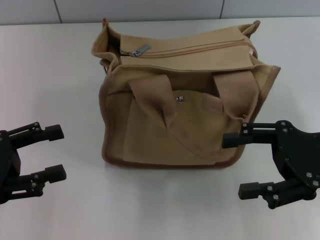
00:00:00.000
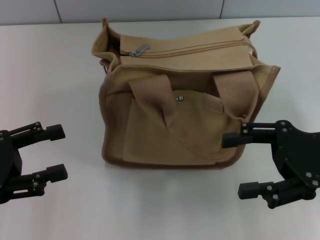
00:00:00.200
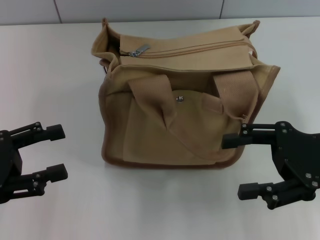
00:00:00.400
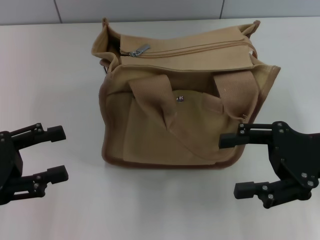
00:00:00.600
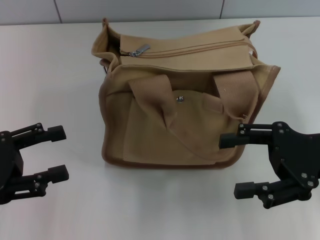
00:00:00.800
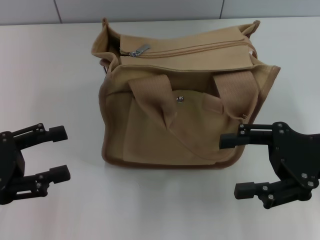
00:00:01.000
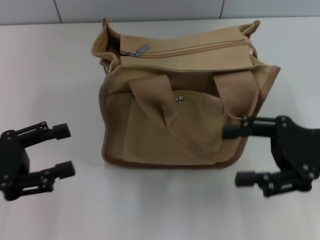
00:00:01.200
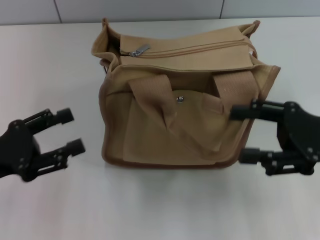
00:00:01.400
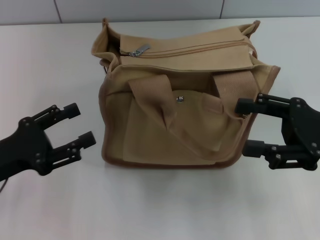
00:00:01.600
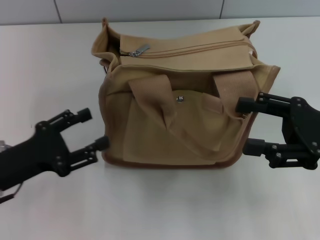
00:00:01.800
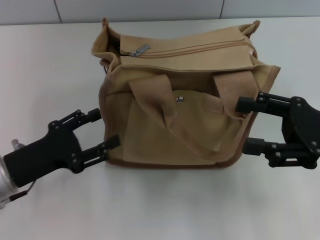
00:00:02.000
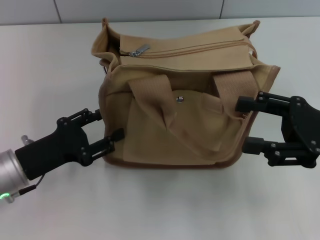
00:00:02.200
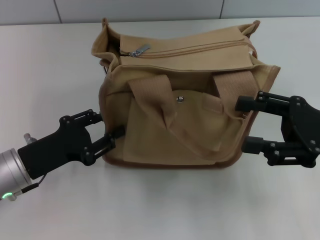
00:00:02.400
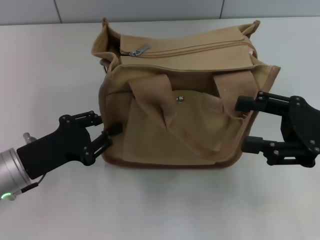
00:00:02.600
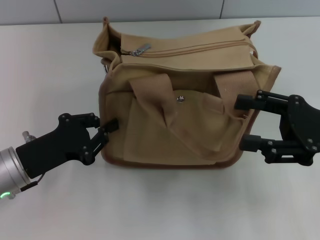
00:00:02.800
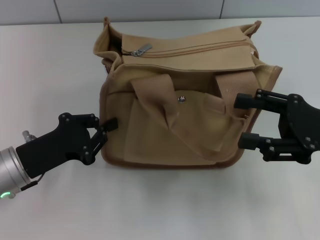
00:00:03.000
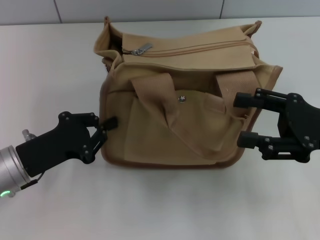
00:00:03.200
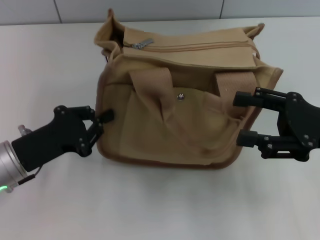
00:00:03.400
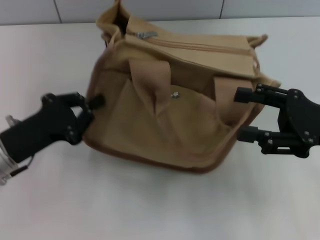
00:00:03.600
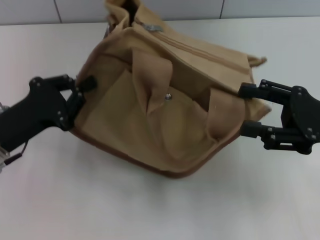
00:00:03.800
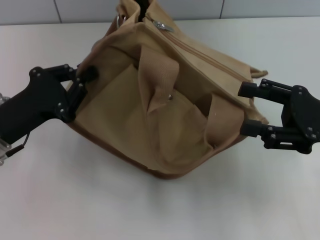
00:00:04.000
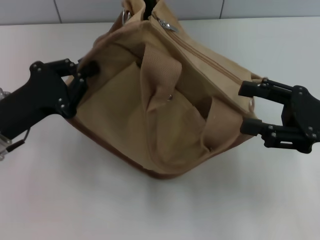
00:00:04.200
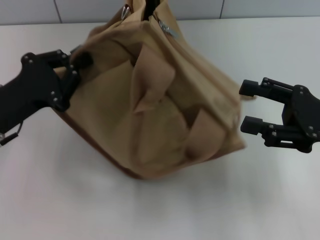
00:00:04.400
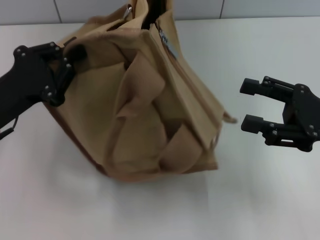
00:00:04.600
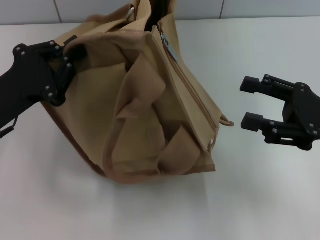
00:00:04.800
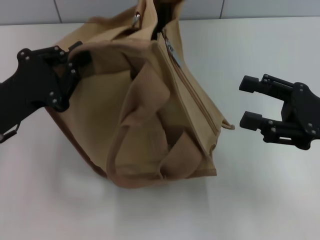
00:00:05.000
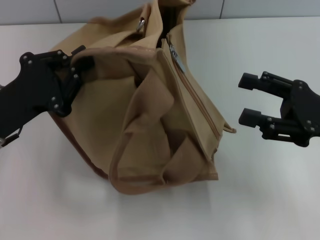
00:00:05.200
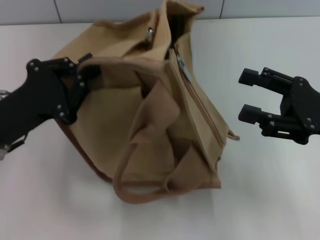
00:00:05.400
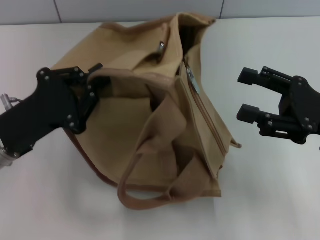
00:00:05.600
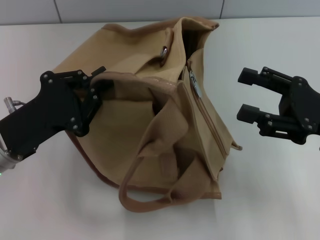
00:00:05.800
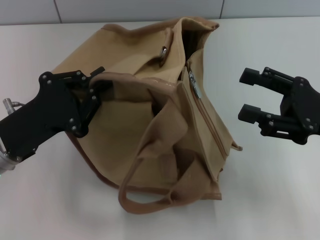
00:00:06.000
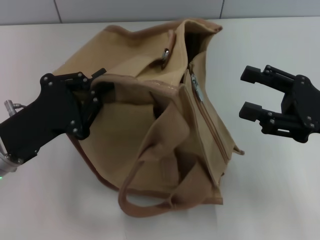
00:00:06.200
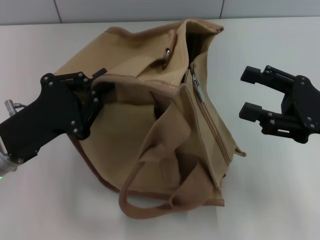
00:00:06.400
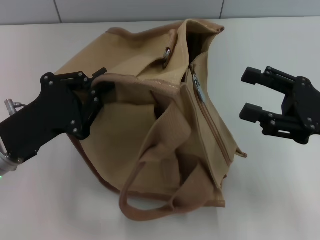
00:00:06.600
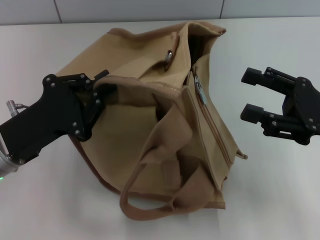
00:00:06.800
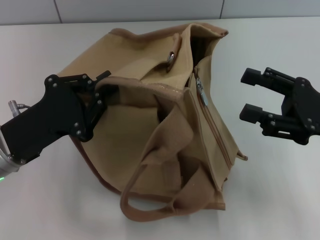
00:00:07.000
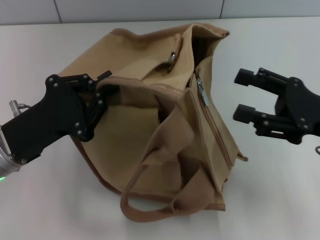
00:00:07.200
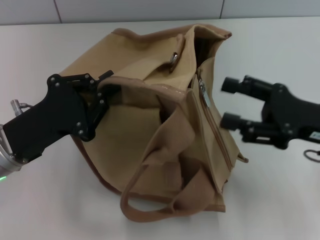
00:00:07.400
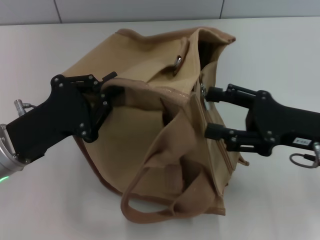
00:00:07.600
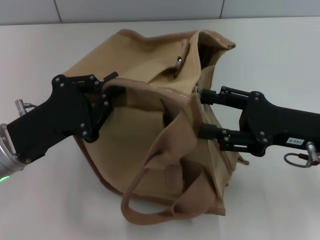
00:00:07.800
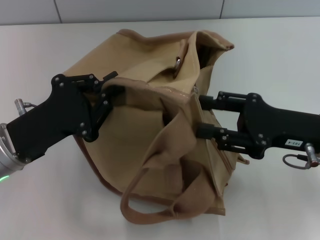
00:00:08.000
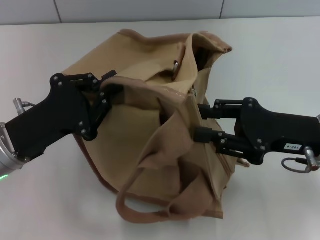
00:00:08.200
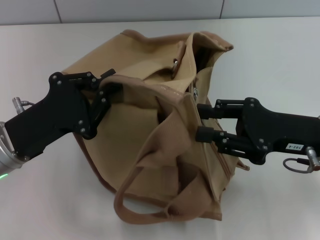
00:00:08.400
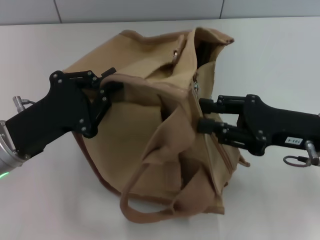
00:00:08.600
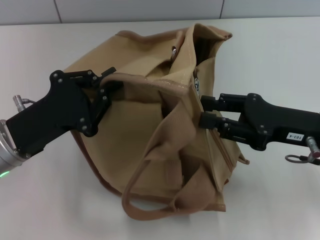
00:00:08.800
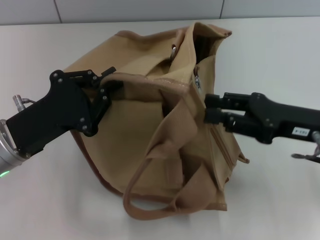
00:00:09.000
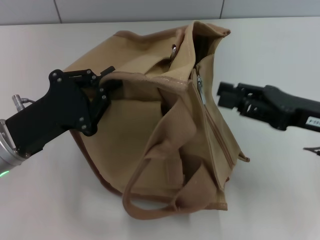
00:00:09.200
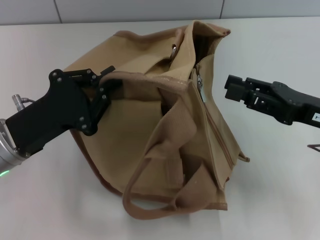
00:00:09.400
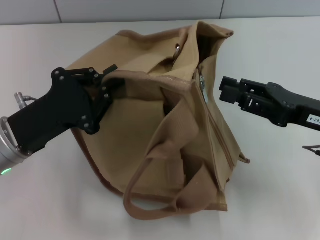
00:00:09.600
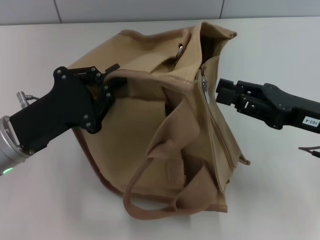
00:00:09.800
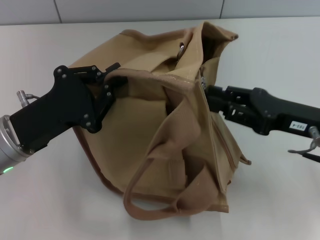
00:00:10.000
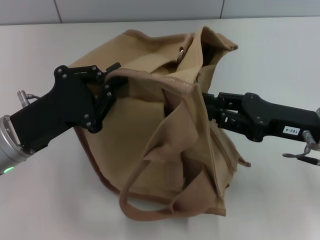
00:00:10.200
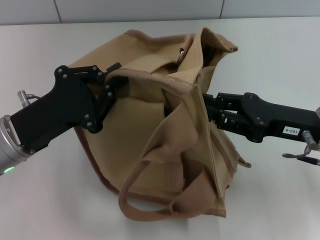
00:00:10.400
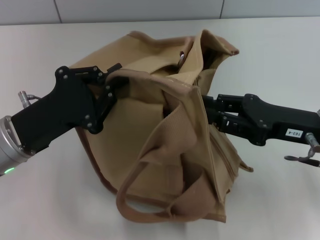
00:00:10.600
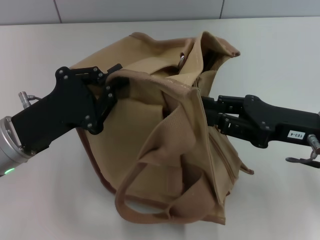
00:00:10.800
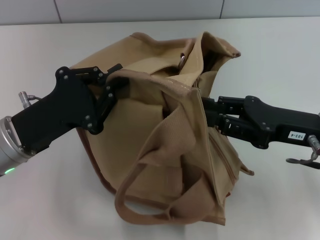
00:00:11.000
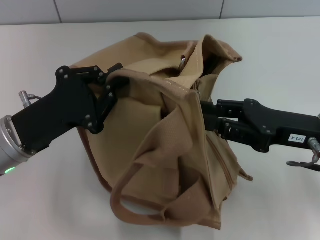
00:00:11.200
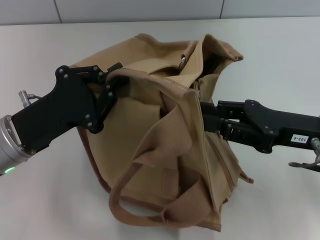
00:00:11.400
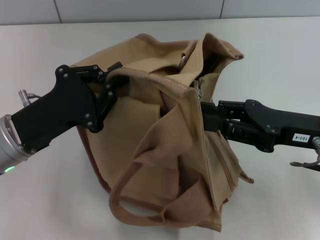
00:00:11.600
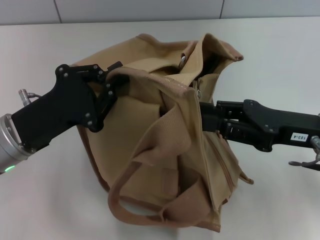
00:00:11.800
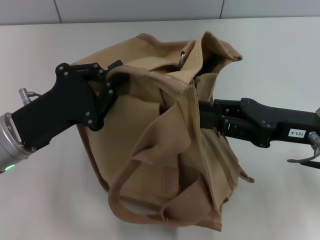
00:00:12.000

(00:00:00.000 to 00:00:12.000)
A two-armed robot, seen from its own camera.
00:00:00.000 - 00:00:01.600: The grippers make only small movements.
00:00:01.600 - 00:00:03.000: The left gripper ends up some 5 cm from where it was, and closes.
00:00:03.000 - 00:00:04.400: The left gripper moves upward, about 5 cm.
00:00:07.600 - 00:00:09.000: The right gripper closes.
00:00:09.000 - 00:00:12.000: The grippers make only small movements.

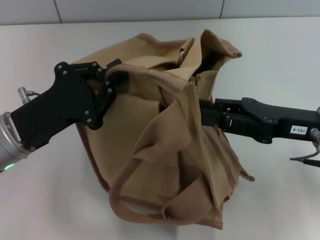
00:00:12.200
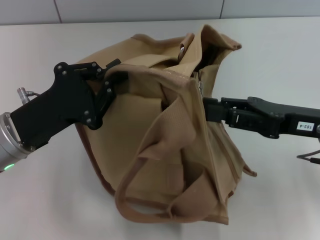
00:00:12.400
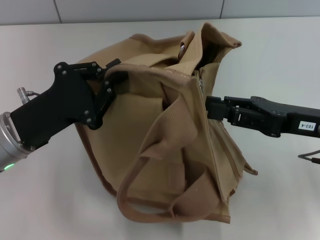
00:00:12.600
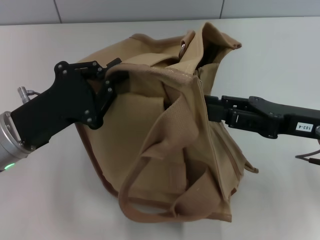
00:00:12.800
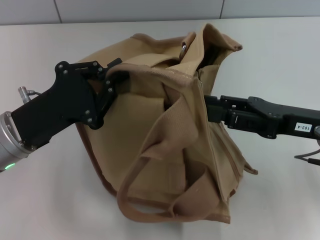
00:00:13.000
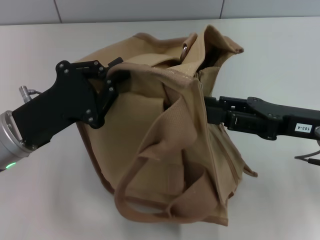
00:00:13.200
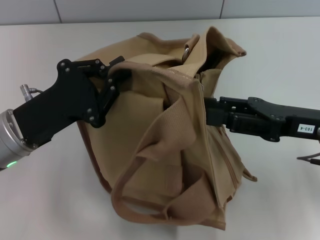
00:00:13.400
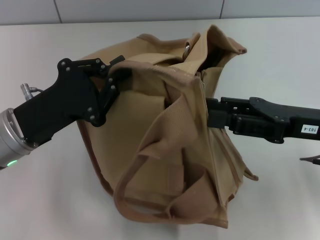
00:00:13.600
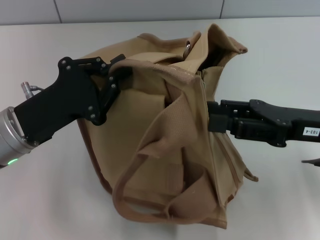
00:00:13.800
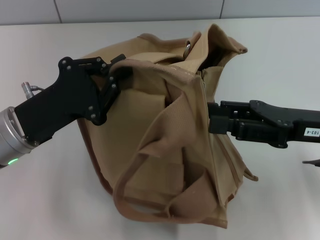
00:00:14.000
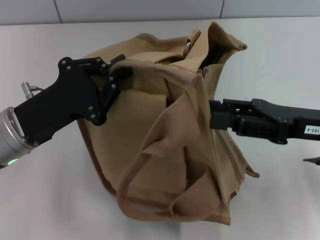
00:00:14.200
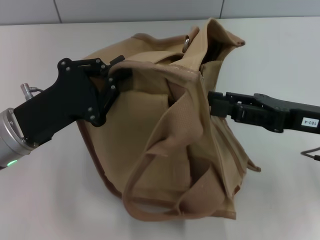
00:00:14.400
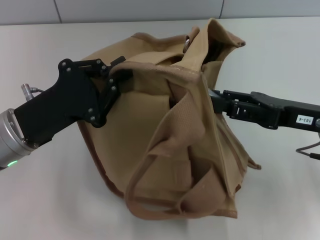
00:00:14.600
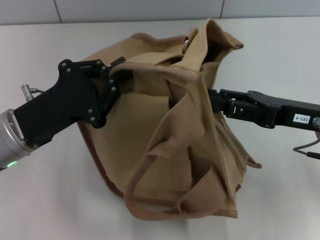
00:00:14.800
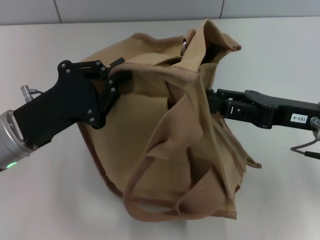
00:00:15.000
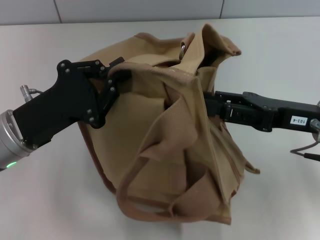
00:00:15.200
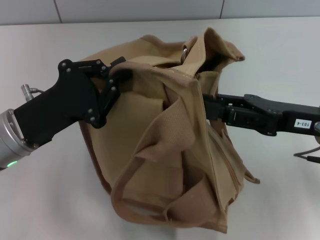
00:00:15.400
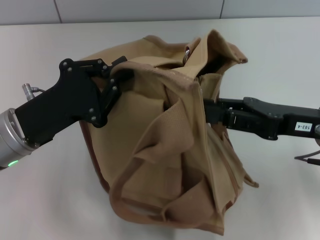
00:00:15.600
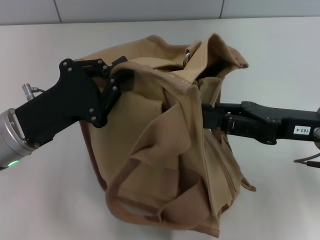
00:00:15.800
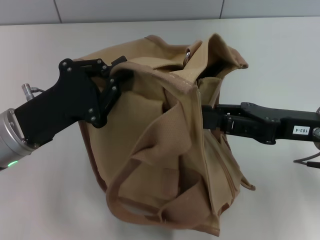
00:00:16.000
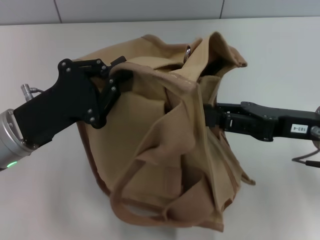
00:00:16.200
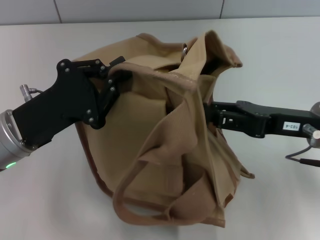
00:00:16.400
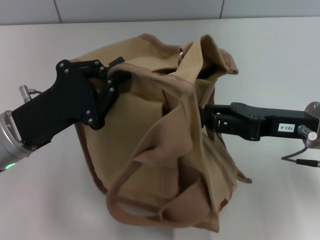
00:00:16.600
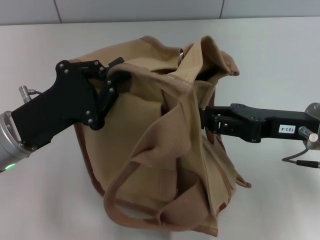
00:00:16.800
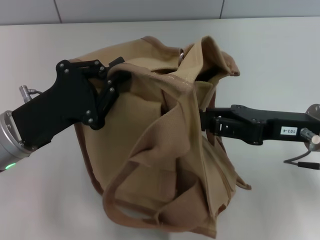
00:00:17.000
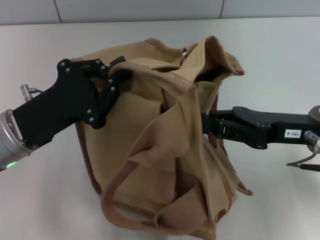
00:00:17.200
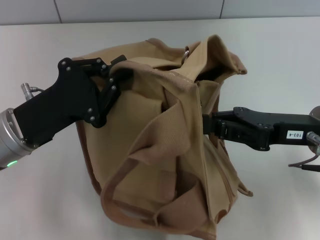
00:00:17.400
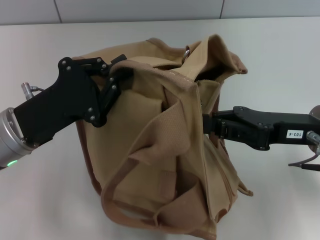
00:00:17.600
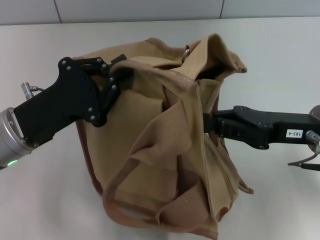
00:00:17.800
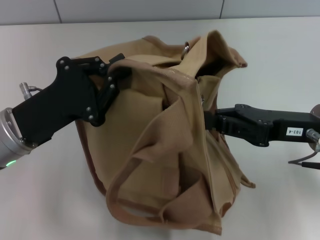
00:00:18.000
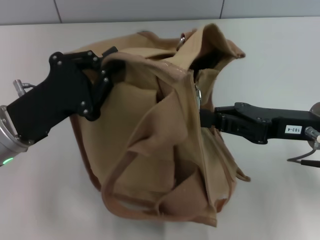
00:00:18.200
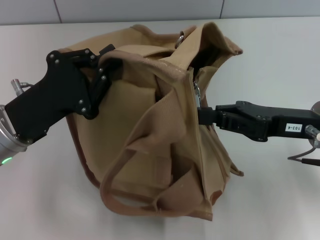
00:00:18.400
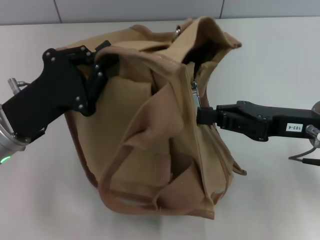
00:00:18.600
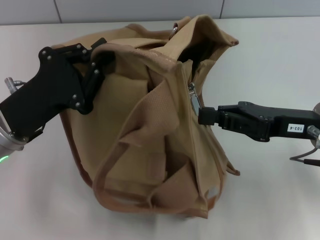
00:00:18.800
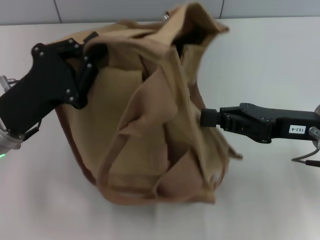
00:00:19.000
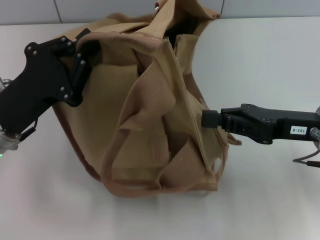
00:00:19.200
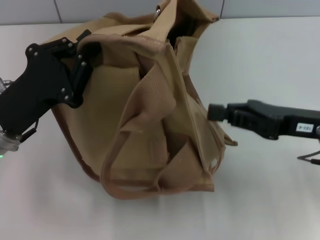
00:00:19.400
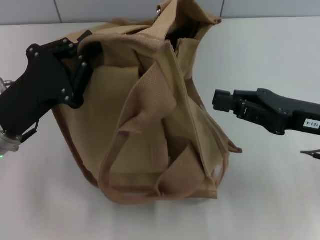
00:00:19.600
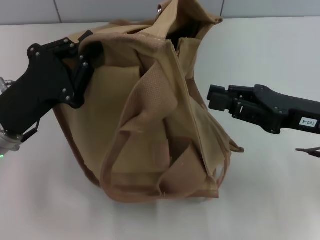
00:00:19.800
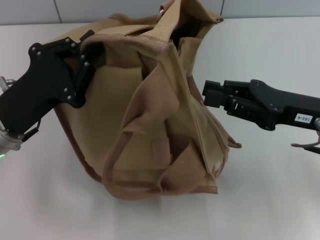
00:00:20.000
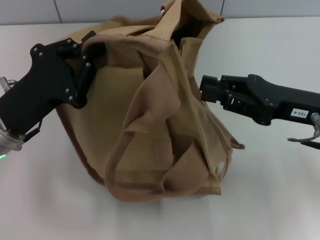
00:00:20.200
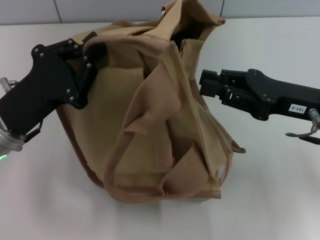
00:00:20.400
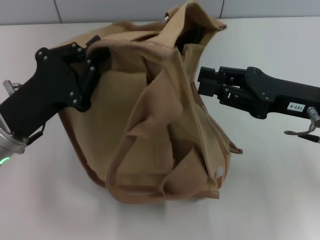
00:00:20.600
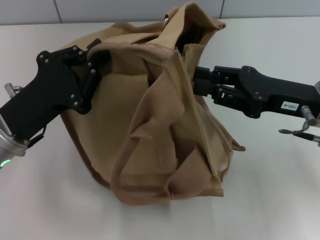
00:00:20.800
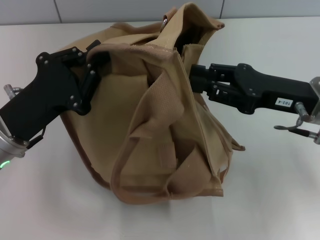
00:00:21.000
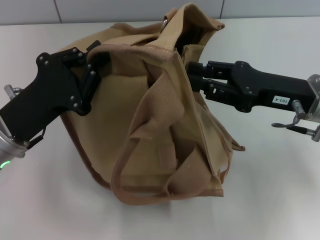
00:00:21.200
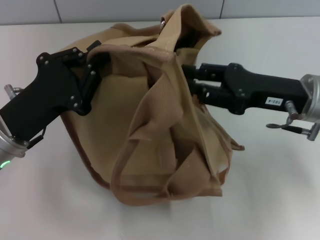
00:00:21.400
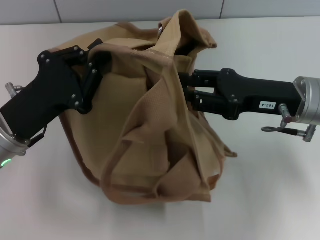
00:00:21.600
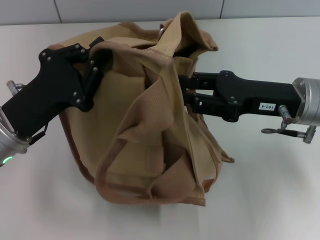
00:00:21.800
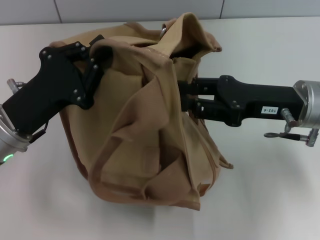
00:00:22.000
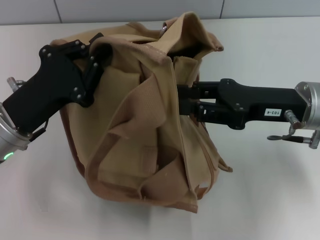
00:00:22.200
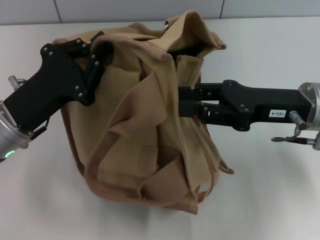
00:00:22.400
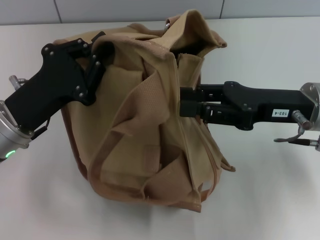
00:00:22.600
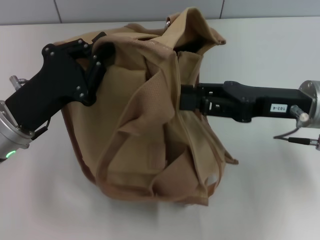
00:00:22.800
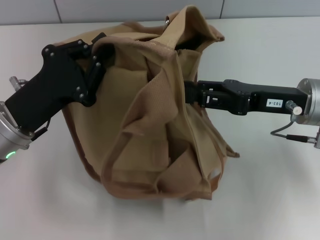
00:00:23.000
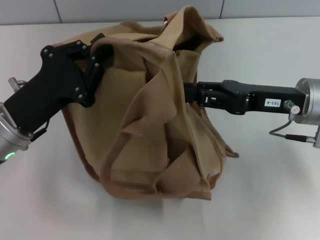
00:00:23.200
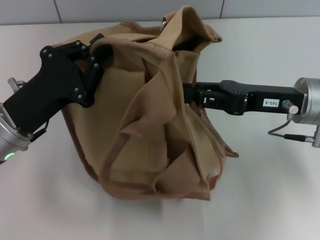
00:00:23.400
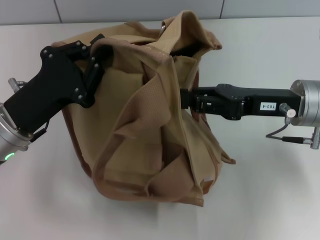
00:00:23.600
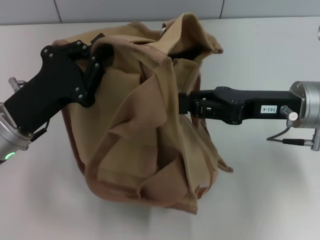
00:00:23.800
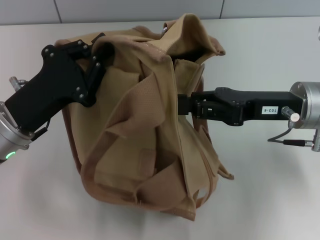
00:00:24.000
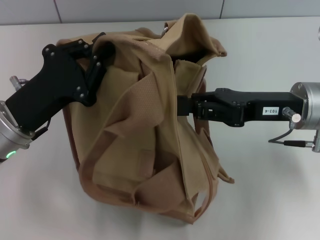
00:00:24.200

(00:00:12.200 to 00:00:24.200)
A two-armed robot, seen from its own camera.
00:00:12.200 - 00:00:13.800: The two grippers keep their place.
00:00:13.800 - 00:00:15.200: There are only small adjustments of the grippers.
00:00:15.200 - 00:00:16.600: Both grippers stay put.
00:00:16.600 - 00:00:18.200: The right gripper closes its fingers.
00:00:19.800 - 00:00:21.200: The right gripper opens.
00:00:22.600 - 00:00:24.200: There are only small adjustments of the grippers.
